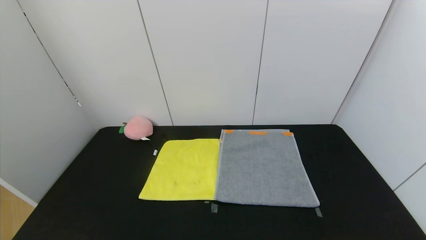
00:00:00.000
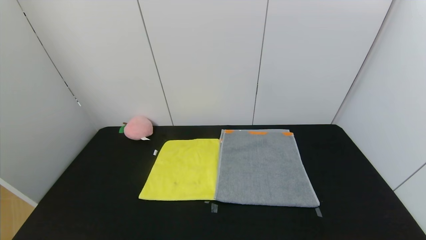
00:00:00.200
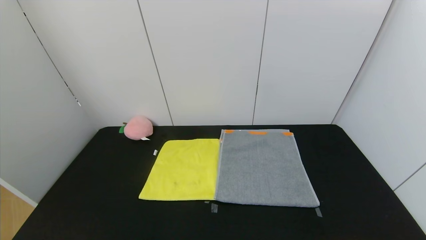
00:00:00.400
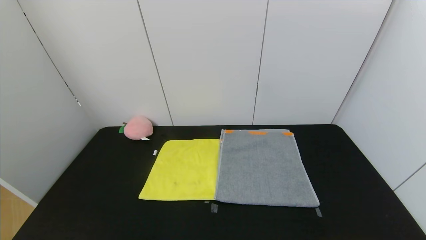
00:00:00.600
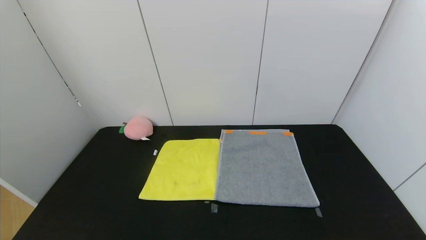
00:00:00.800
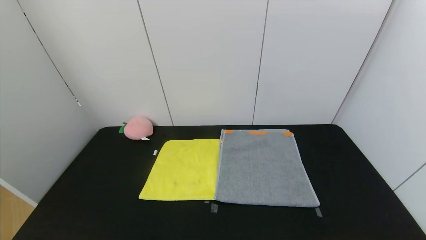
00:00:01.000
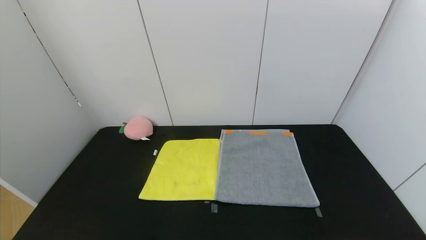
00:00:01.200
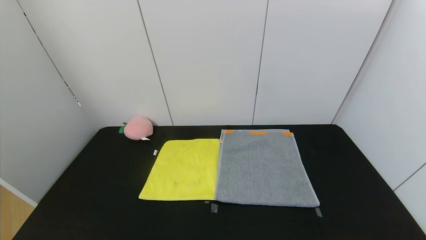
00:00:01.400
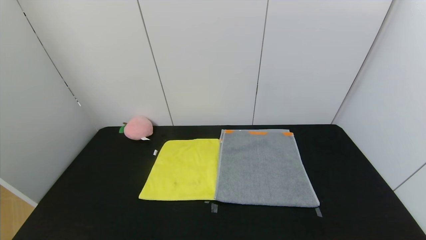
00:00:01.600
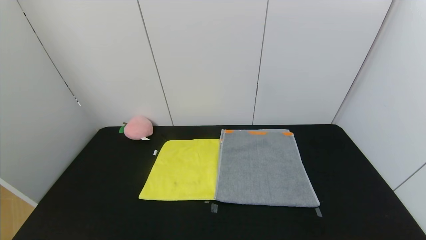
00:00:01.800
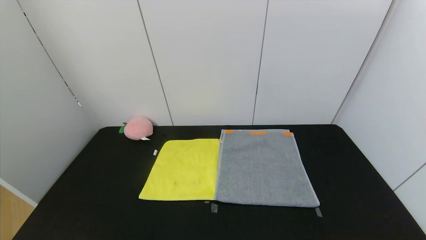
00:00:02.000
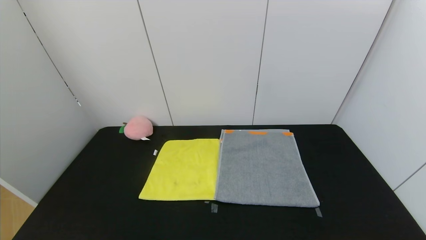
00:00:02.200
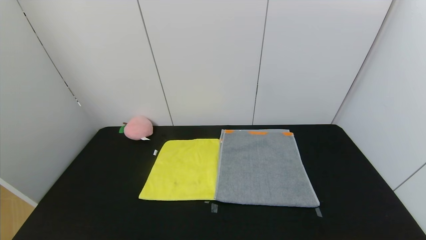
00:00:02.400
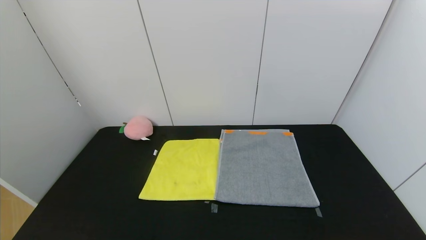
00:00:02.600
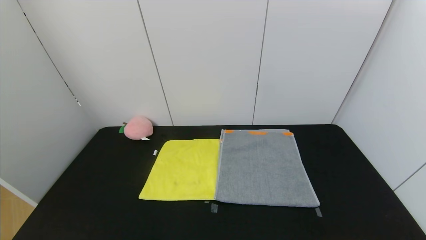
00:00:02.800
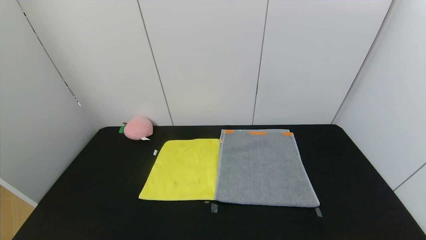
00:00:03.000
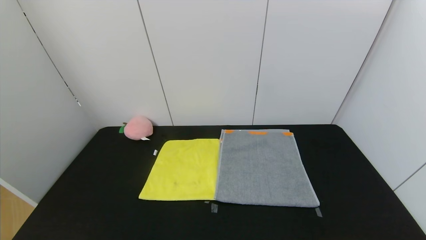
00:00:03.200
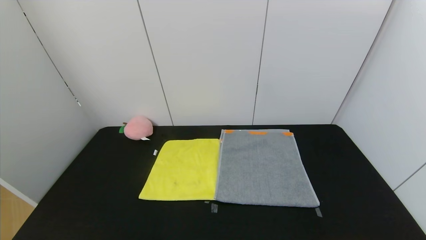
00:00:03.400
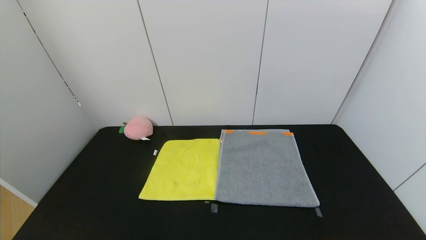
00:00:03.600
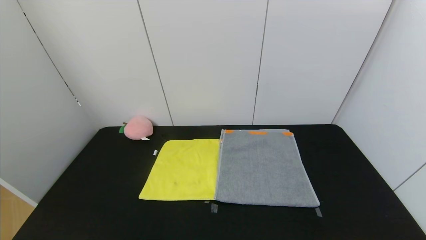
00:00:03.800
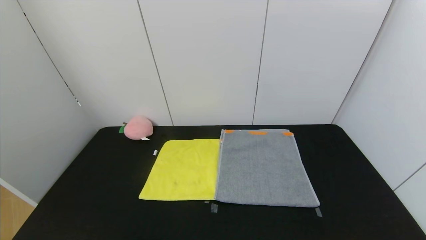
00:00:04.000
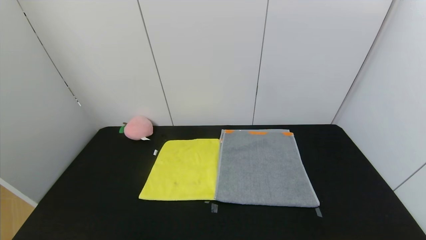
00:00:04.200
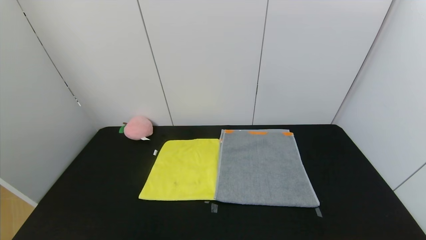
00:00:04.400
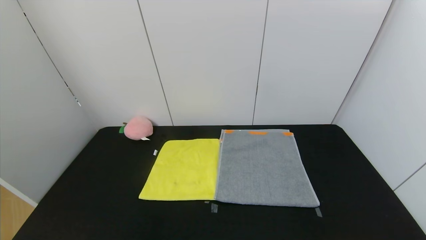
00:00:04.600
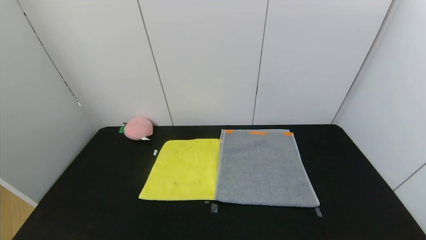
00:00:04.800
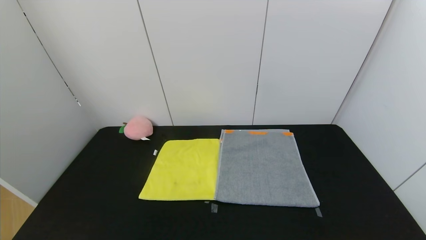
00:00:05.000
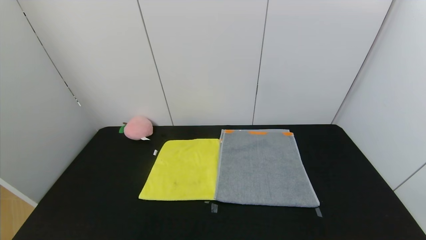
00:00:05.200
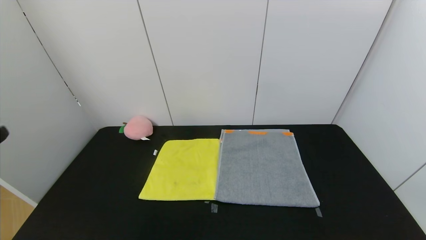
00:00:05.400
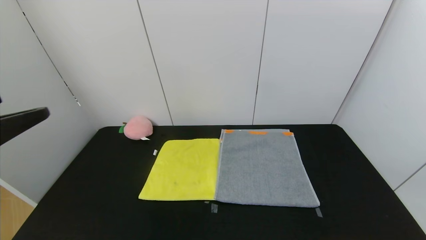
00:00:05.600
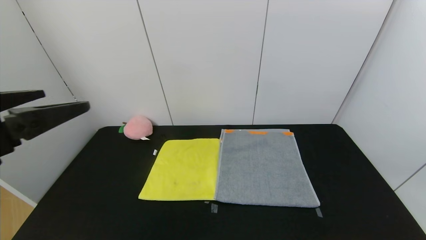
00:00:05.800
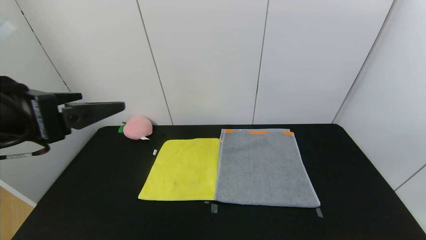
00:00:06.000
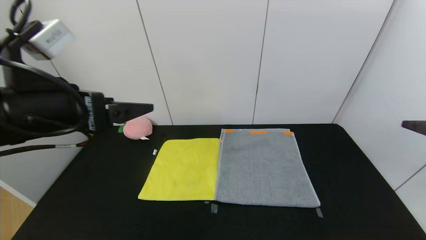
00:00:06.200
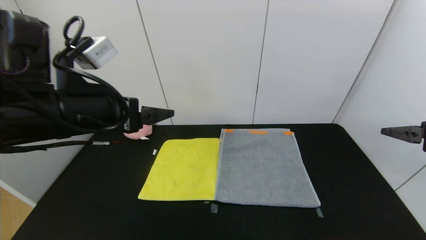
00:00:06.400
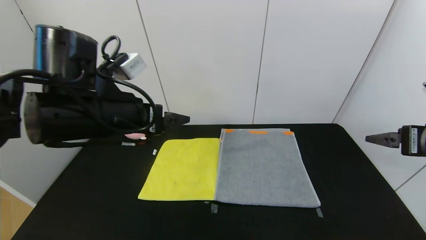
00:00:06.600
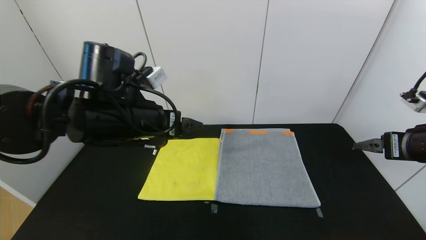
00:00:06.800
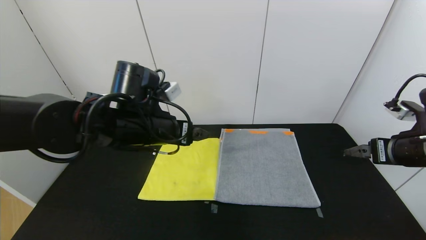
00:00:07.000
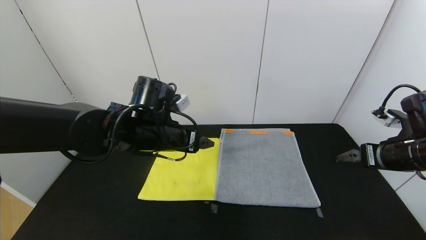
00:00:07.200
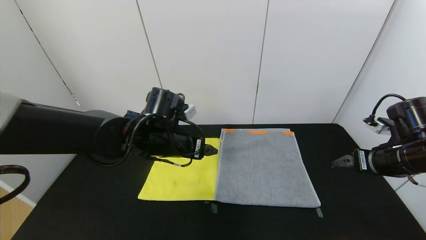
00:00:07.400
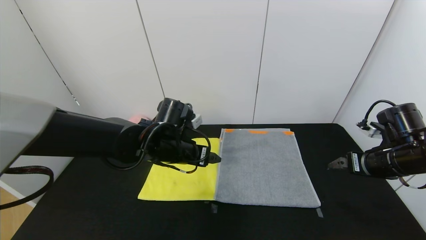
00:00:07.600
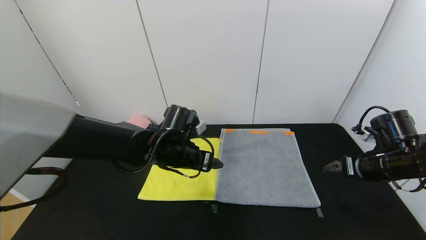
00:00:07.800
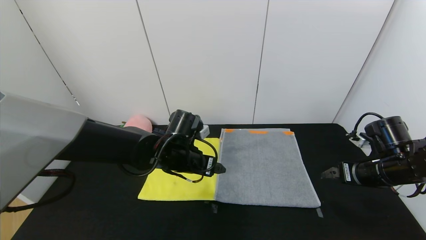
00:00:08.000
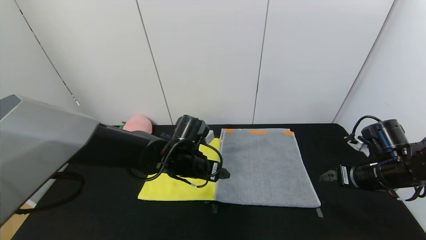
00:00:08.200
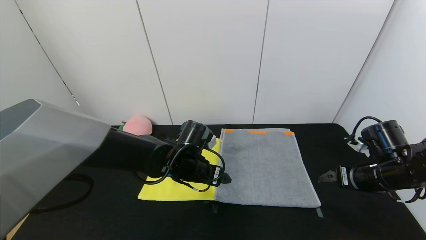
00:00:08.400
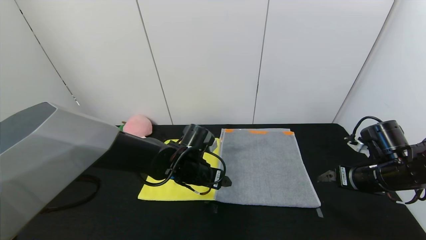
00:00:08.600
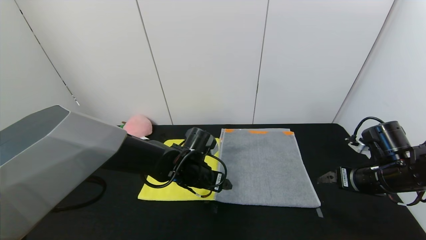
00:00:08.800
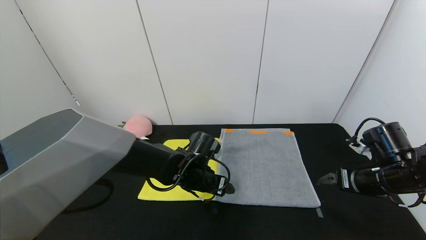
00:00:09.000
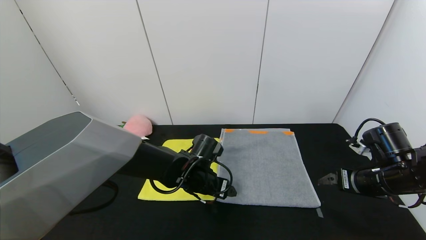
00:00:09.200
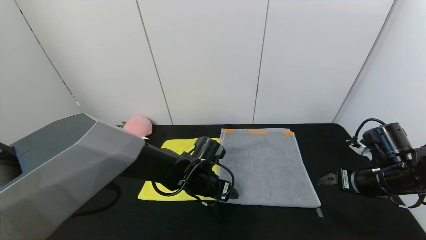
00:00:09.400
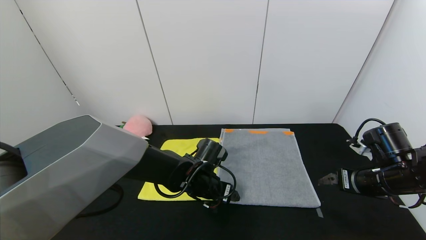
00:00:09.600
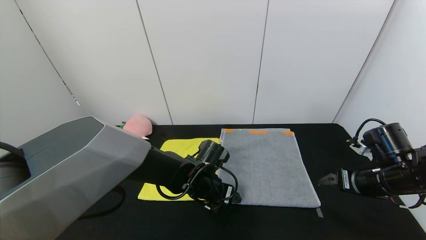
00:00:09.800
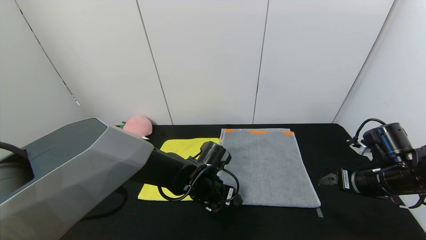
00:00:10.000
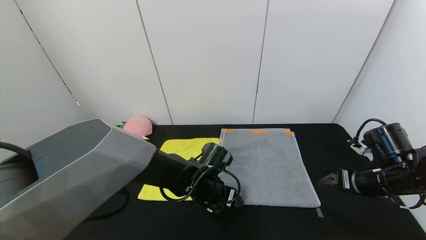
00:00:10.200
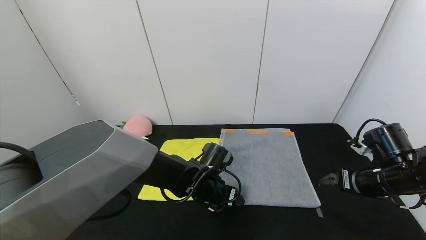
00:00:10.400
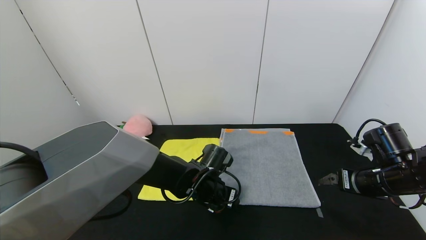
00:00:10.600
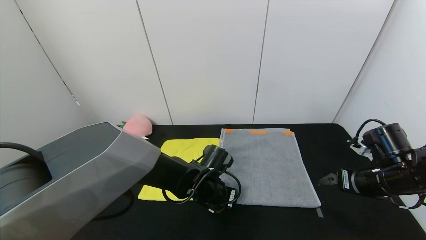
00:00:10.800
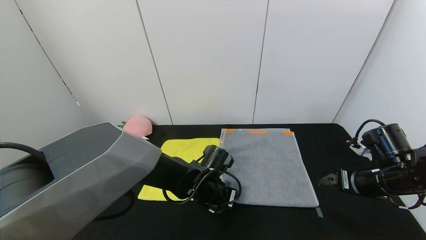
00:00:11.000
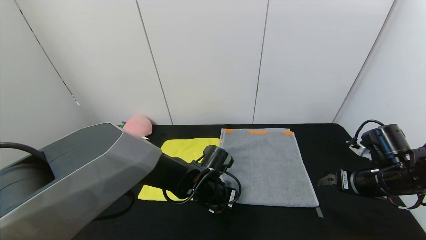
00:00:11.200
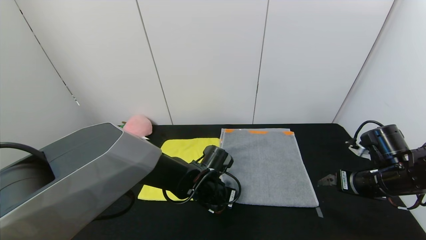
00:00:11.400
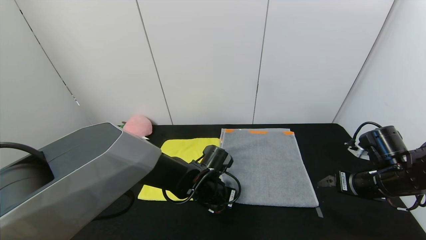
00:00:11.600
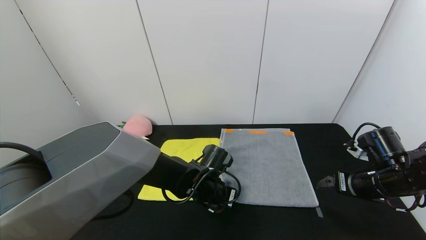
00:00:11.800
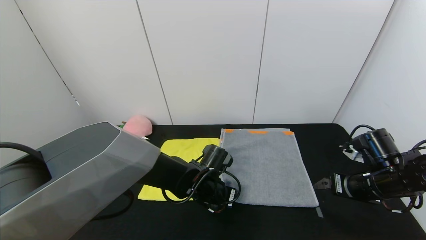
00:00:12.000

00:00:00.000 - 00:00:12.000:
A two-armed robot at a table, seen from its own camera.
Task of the whole recording: Use the gripper to fold the yellow towel and grey towel in half twice,then put the yellow towel on the grey towel.
00:00:00.000 - 00:00:03.000: The two grippers keep their place.
00:00:04.400 - 00:00:06.000: The left gripper heads forward and upward, covering roughly 25 cm; the right gripper goes approximately 25 cm upward and forward.
00:00:06.000 - 00:00:07.600: The left gripper goes about 25 cm forward, downward and to the right. The right gripper is displaced forward and downward by some 20 cm.
00:00:07.600 - 00:00:09.000: The left gripper goes approximately 10 cm downward.
00:00:09.000 - 00:00:10.400: The grippers move only a little.
00:00:10.400 - 00:00:12.000: The left gripper closes.

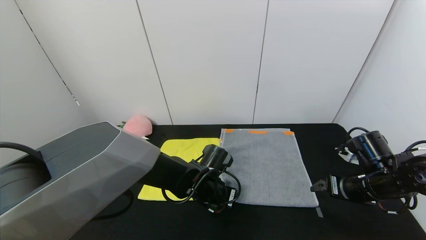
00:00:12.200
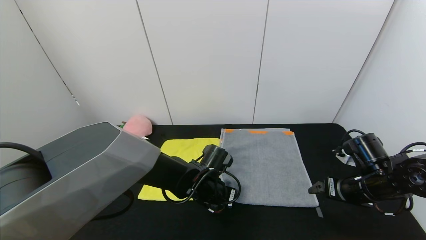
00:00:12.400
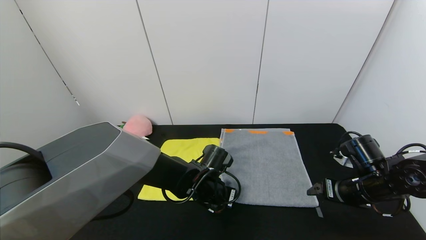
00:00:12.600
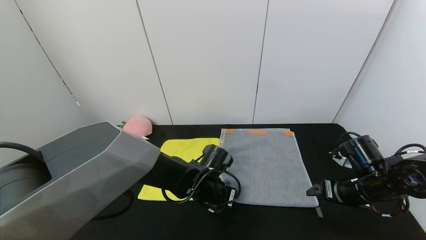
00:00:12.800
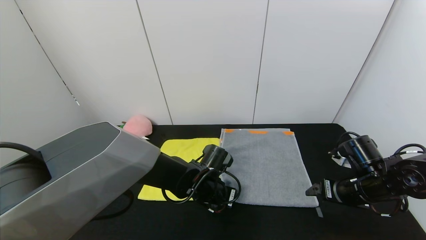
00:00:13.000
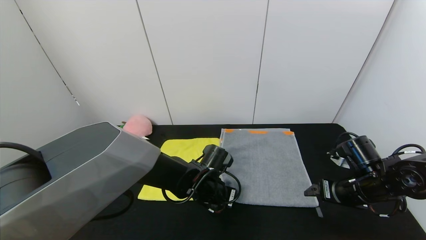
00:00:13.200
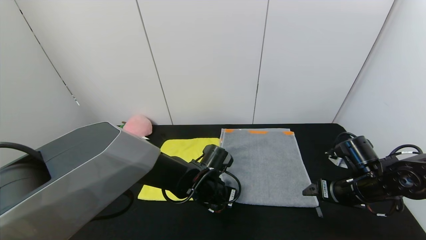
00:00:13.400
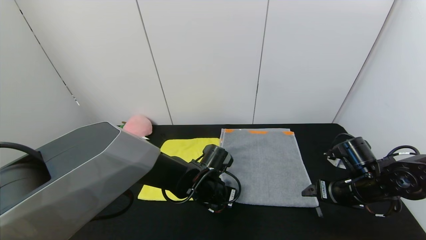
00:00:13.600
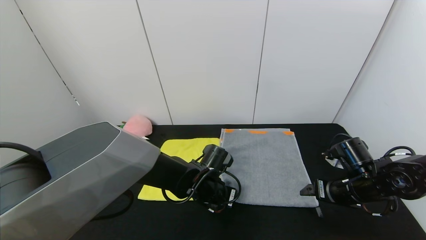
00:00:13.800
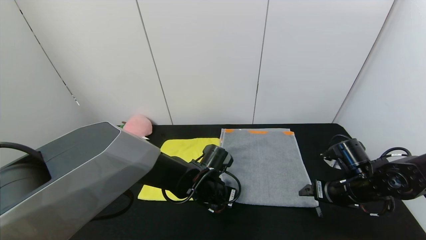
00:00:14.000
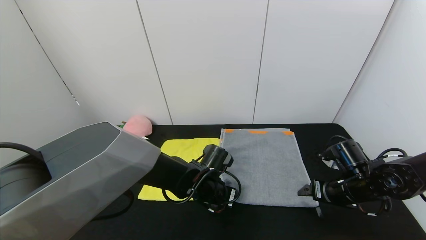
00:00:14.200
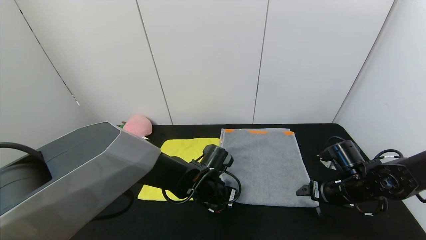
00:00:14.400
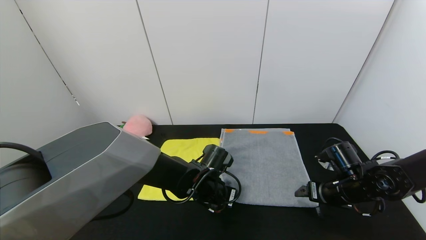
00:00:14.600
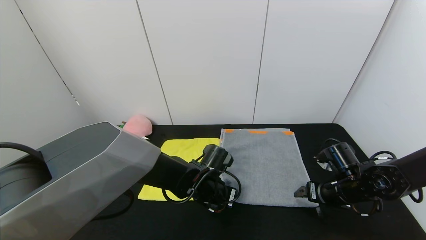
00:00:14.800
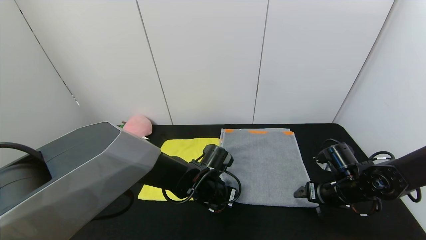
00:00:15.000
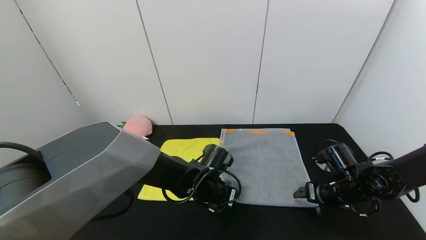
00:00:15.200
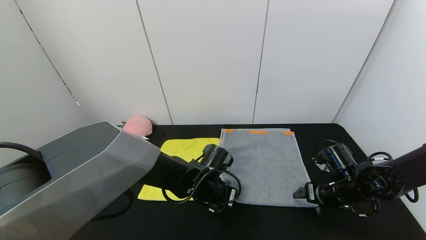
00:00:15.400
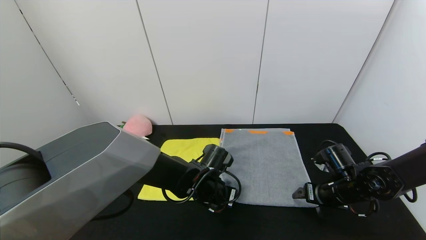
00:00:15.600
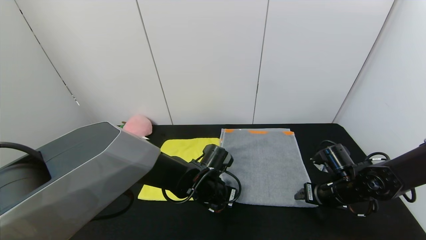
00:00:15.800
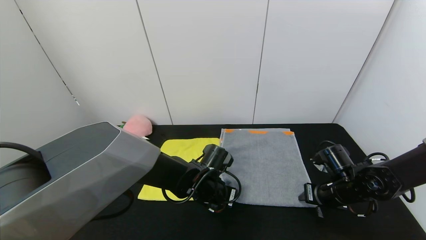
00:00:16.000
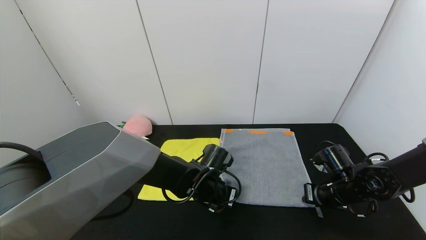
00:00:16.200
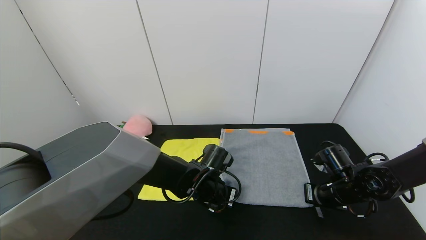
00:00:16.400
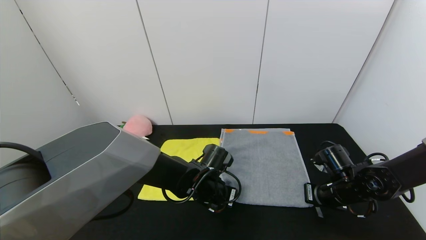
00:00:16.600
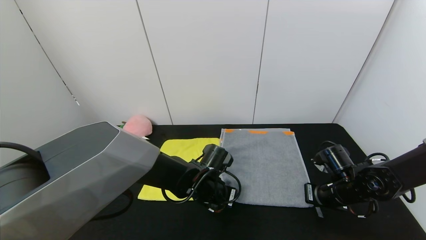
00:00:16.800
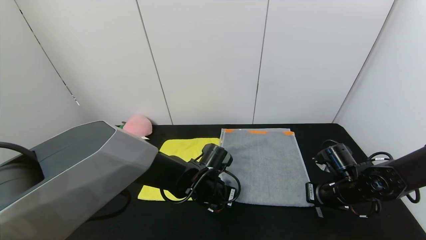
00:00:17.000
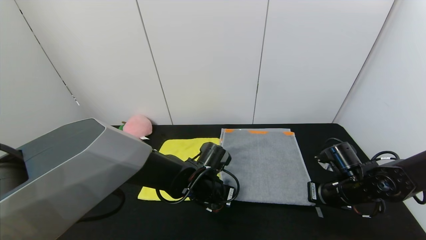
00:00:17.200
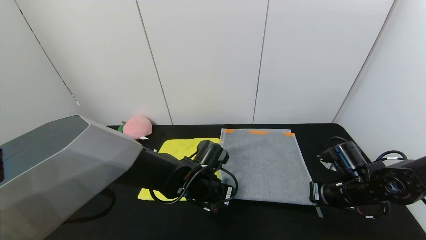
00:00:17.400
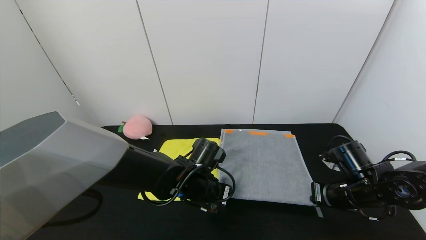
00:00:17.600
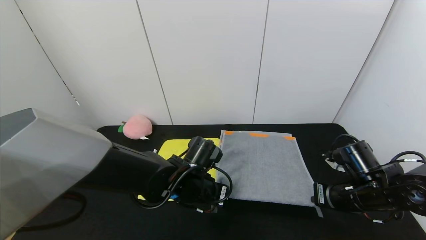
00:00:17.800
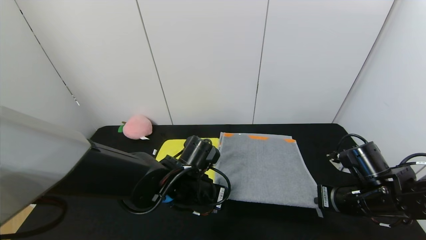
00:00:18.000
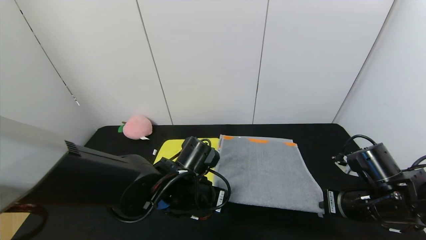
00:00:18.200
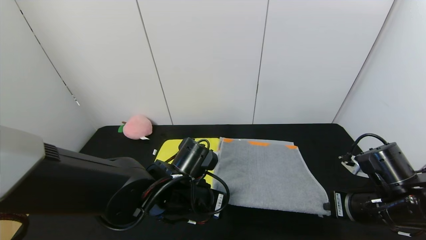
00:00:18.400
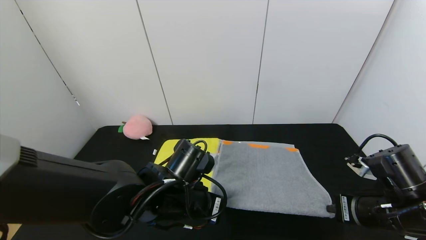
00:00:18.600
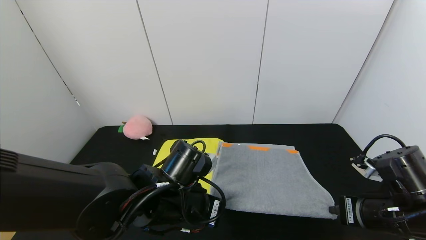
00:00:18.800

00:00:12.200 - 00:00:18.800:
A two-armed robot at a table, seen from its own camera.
Task of the whole recording: Use the gripper to fold the yellow towel and grey towel in half twice,then put the yellow towel on the grey towel.
00:00:12.200 - 00:00:13.800: The grippers move only a little.
00:00:13.800 - 00:00:15.400: There are only small adjustments of the grippers.
00:00:15.400 - 00:00:17.200: The right gripper closes.
00:00:17.200 - 00:00:18.800: The two grippers go roughly 10 cm backward and upward.
